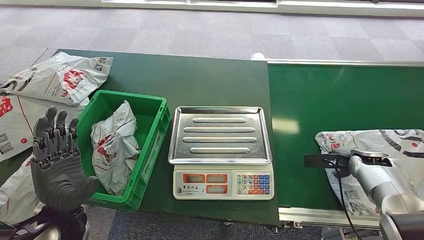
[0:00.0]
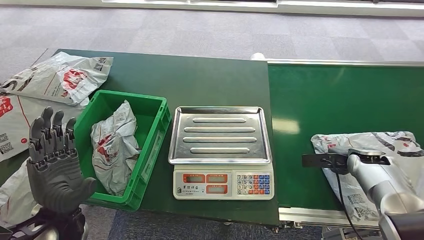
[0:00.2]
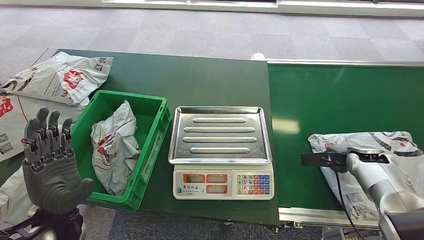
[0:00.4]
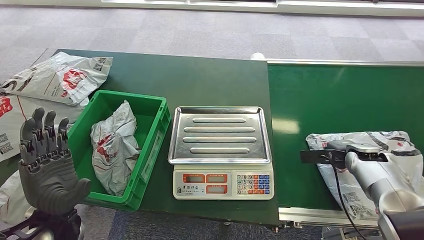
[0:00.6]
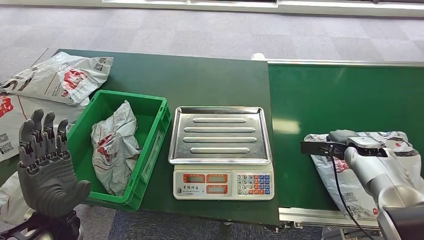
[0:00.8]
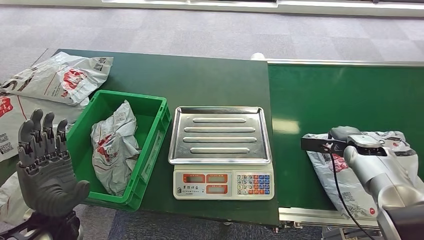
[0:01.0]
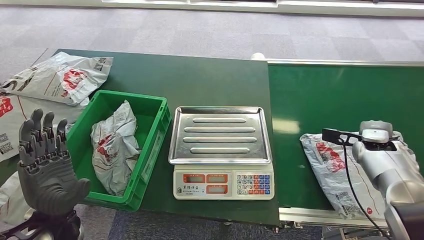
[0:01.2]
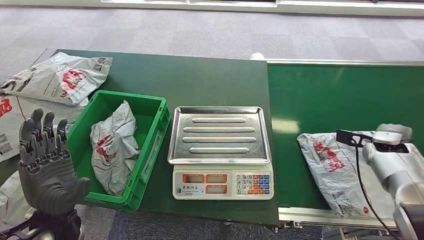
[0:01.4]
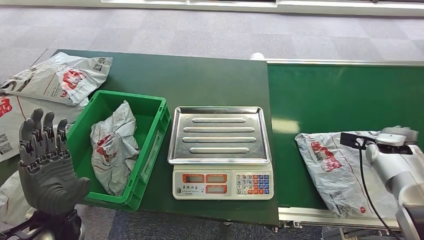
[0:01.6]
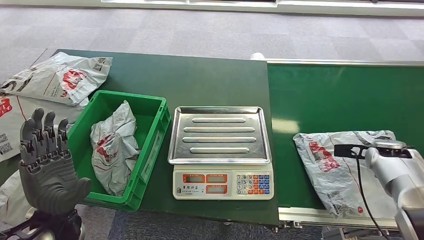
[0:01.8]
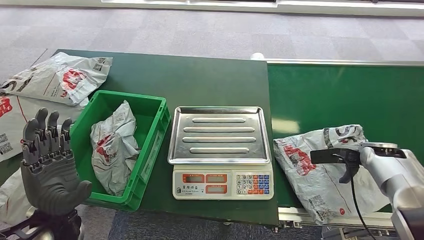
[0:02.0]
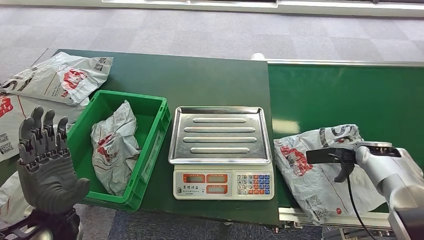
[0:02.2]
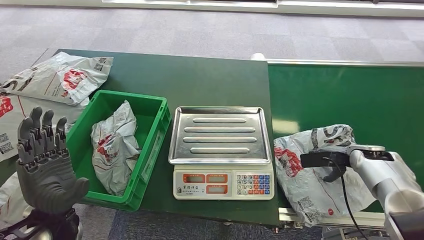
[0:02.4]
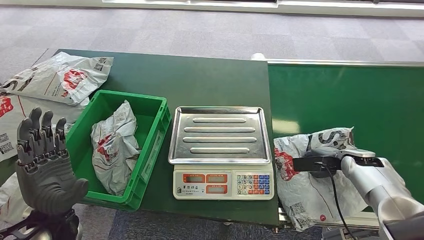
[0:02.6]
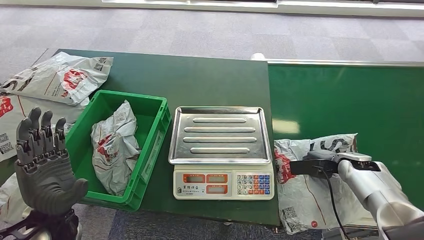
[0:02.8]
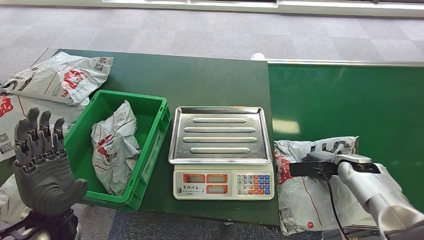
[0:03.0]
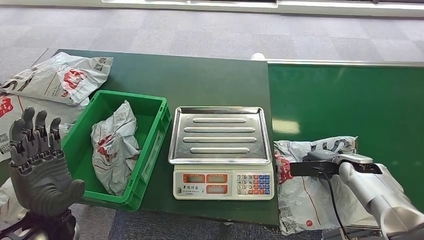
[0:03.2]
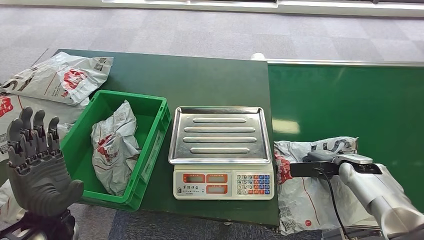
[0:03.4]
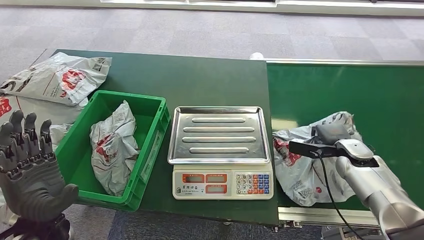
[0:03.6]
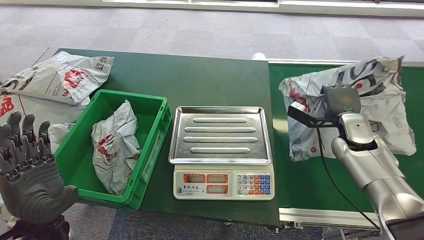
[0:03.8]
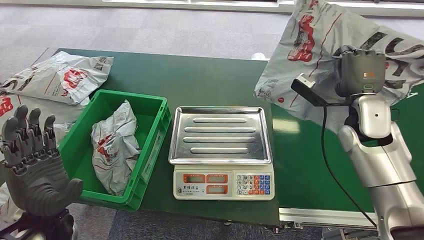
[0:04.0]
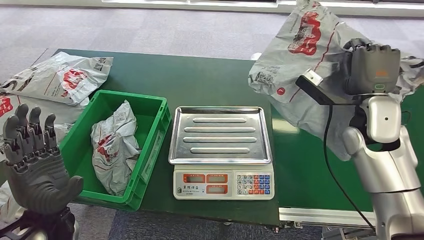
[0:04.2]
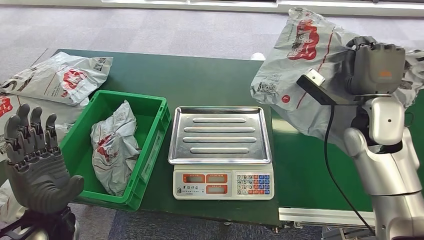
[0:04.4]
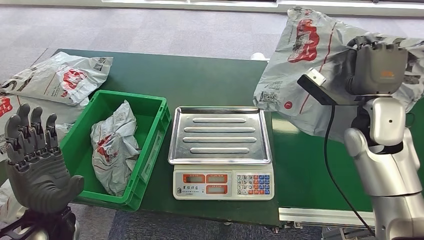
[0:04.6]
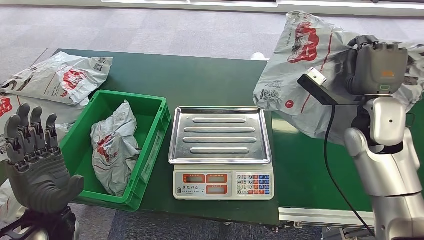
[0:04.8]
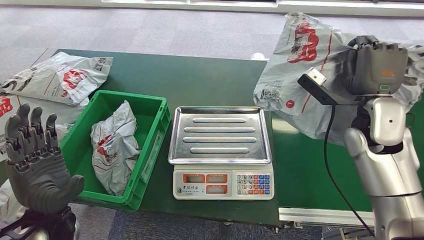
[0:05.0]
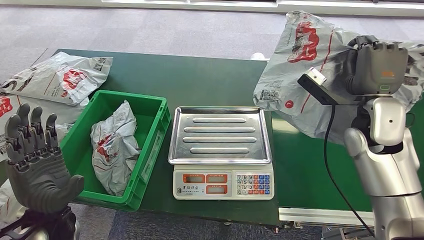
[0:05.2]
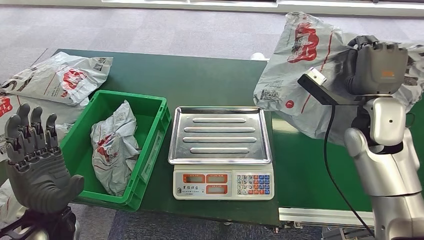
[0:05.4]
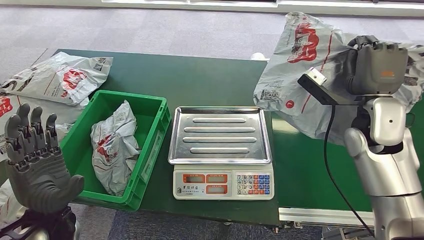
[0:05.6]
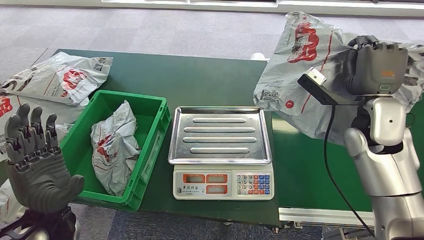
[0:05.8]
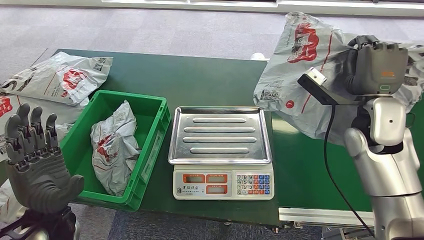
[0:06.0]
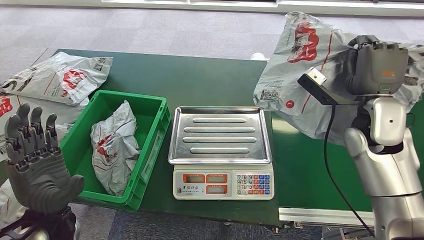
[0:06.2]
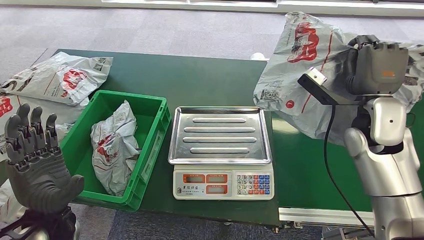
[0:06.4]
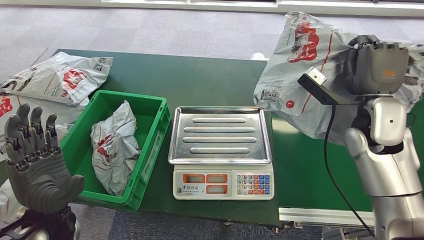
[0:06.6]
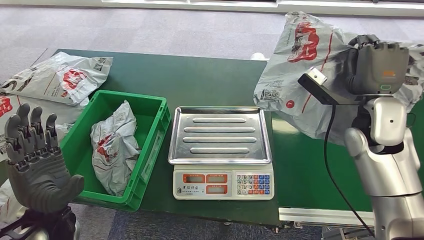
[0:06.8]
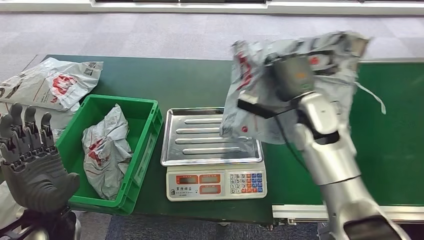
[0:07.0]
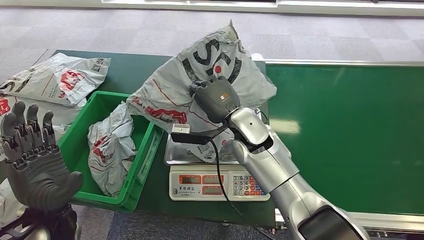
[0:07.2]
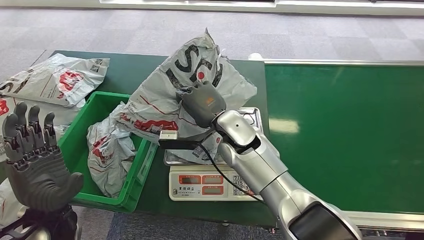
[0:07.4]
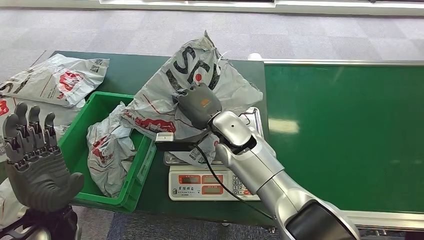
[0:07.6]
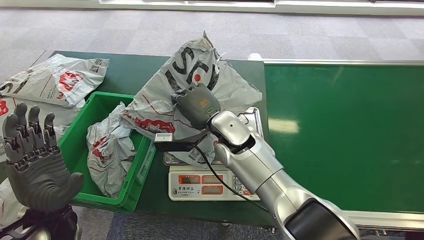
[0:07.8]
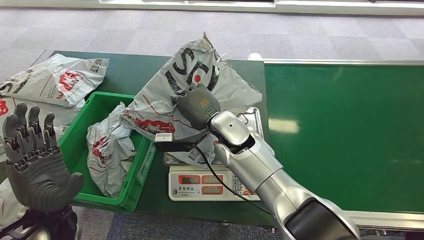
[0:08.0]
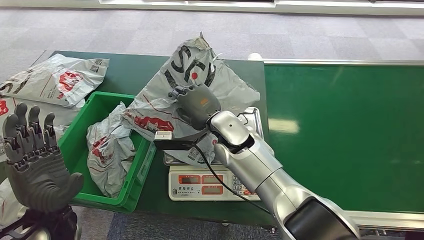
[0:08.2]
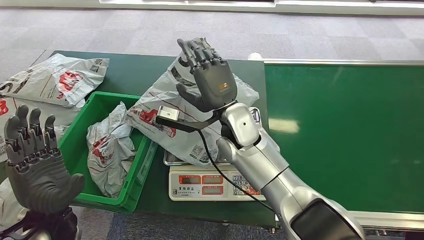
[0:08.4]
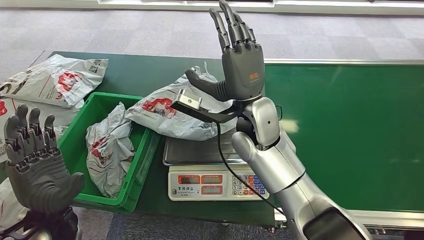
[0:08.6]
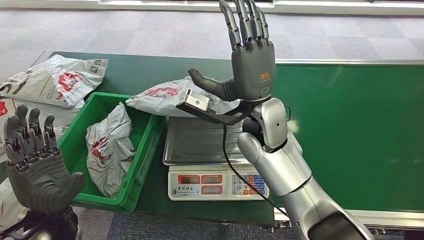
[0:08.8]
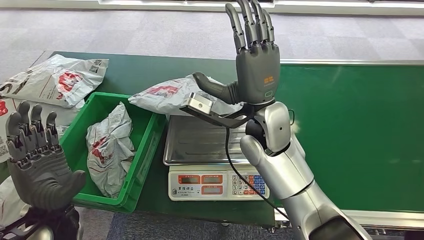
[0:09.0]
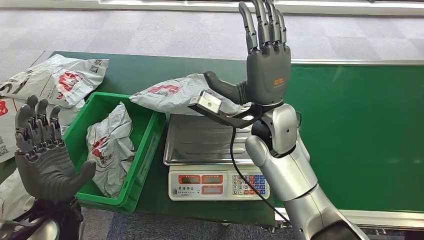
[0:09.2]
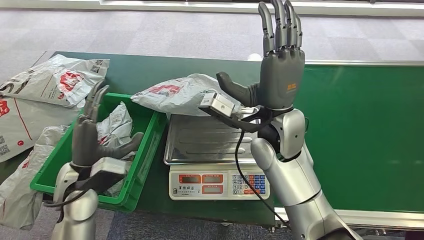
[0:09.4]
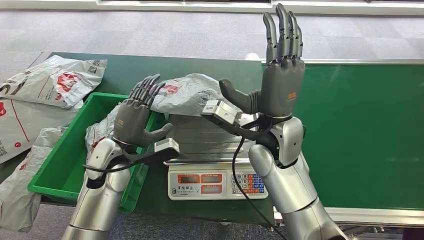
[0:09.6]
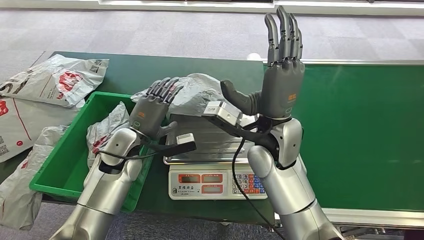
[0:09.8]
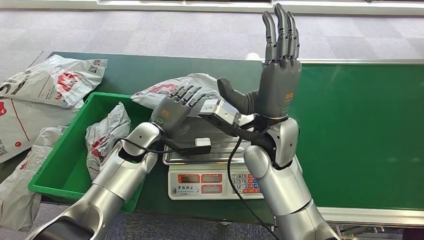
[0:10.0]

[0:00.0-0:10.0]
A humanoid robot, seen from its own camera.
Step, 0:00.0 to 0:04.2: Pick up the package from the conveyor belt.
Step, 0:04.4 to 0:09.6: Place the package onto the inbound machine.
0:00.0 to 0:01.4: The right hand shifts by approximately 5 cm.
0:01.4 to 0:02.8: The right hand shifts approximately 10 cm downward and to the left.
0:04.2 to 0:05.8: Both hands stay about where they are.

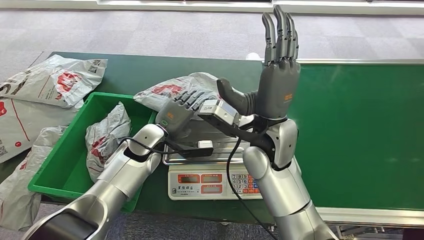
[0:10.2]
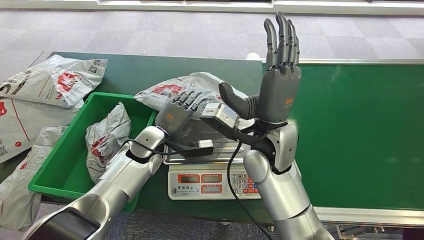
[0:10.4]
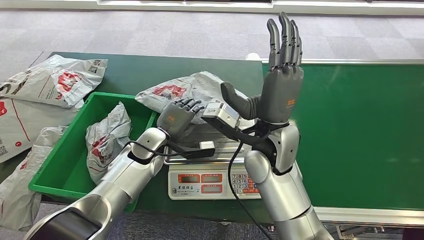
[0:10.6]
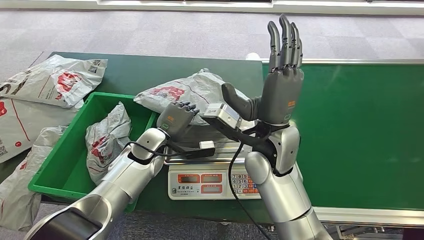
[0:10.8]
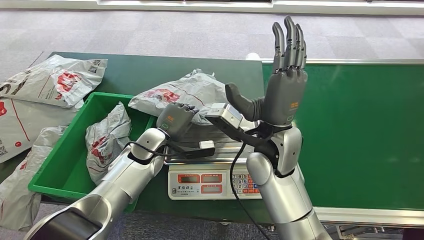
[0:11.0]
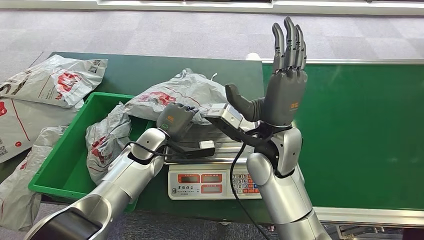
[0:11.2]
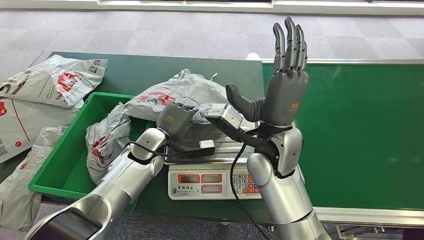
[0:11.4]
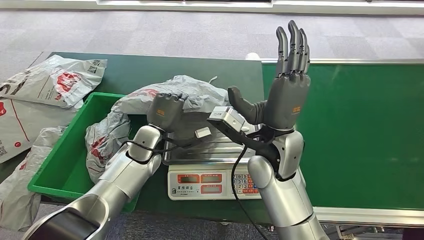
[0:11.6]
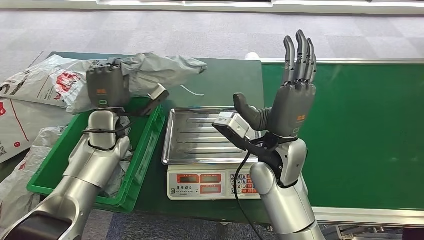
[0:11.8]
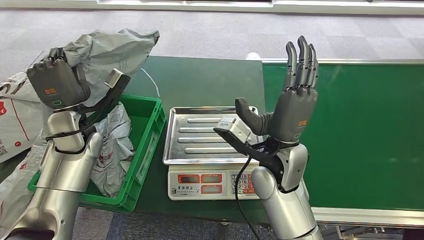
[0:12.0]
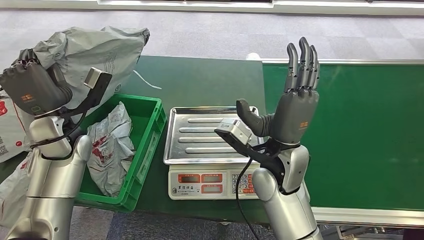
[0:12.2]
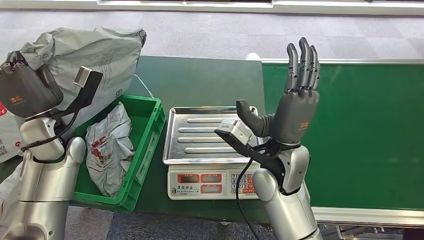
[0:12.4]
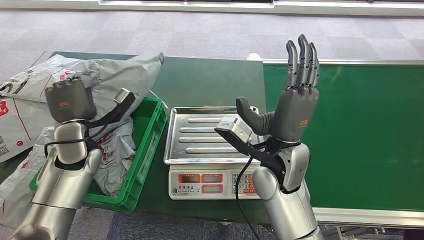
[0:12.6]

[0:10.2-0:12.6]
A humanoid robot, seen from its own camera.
Step, 0:10.2 to 0:12.2: Pick up the package from the inbound machine.
Step, 0:12.4 to 0:12.6: Place the package into the parcel locker.
0:10.2 to 0:11.4: The hands stay close to where they were, moving slightly.

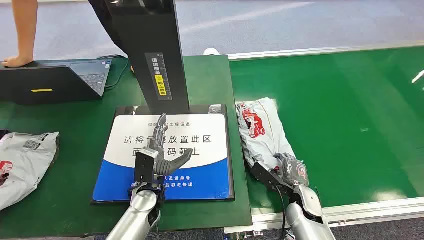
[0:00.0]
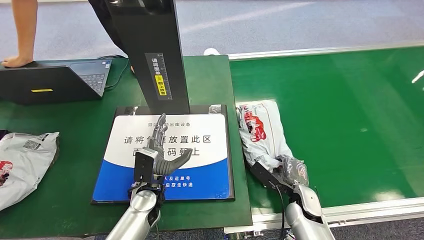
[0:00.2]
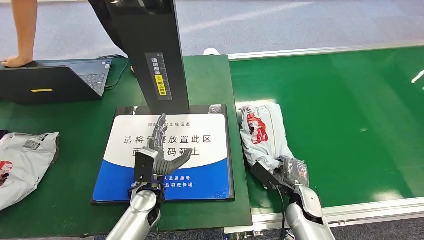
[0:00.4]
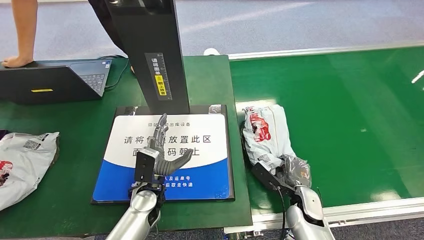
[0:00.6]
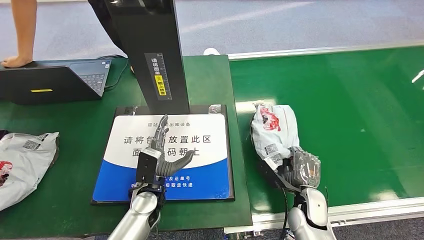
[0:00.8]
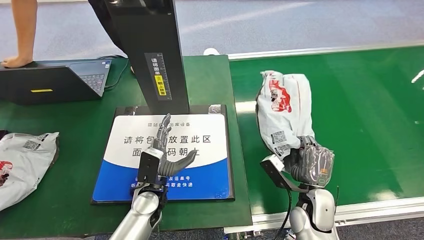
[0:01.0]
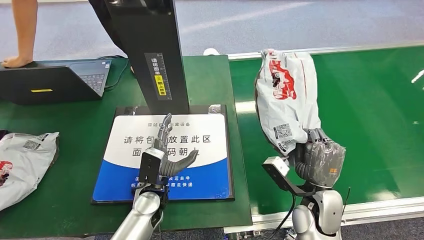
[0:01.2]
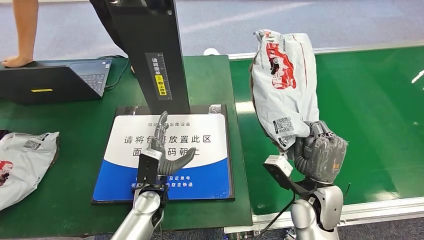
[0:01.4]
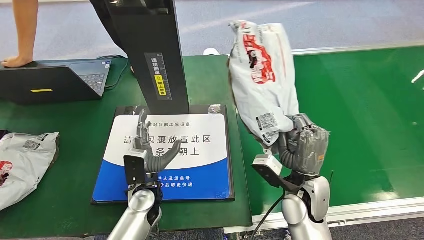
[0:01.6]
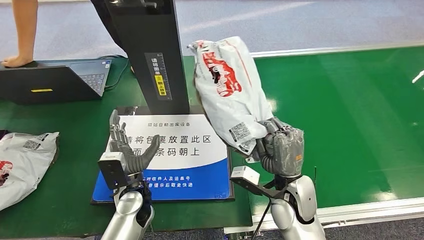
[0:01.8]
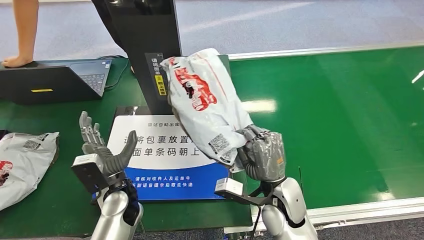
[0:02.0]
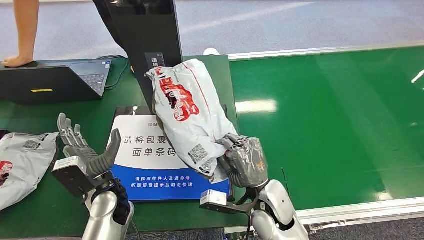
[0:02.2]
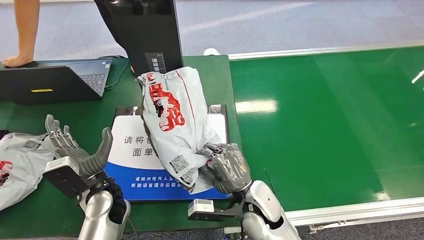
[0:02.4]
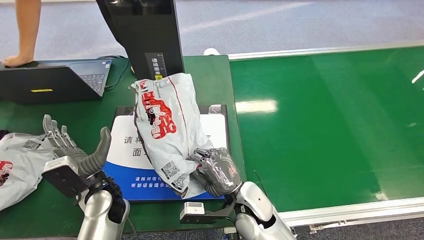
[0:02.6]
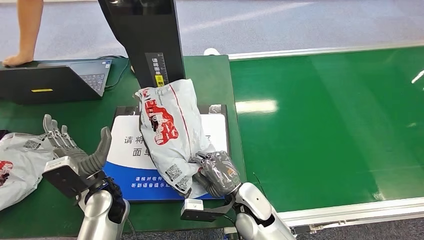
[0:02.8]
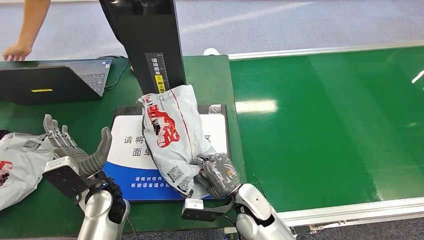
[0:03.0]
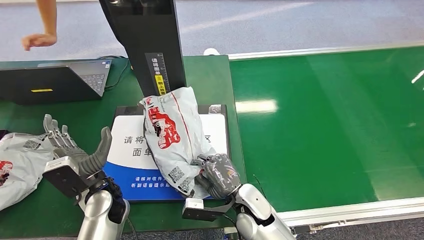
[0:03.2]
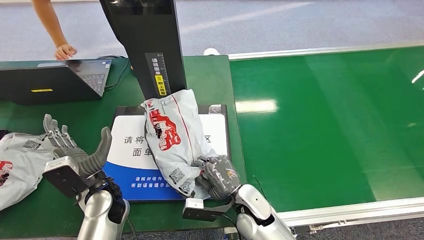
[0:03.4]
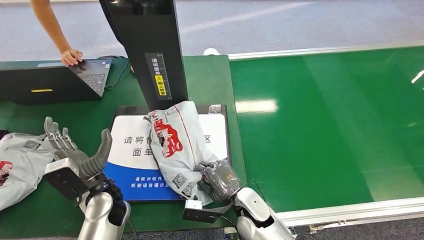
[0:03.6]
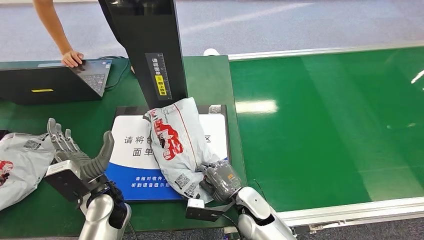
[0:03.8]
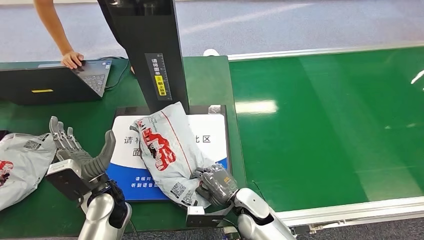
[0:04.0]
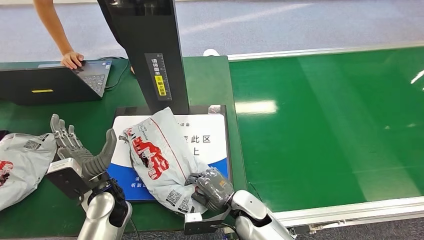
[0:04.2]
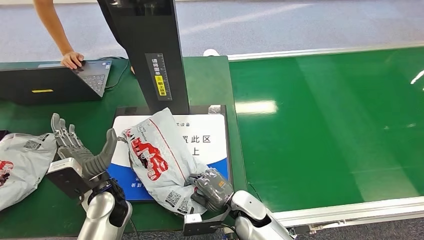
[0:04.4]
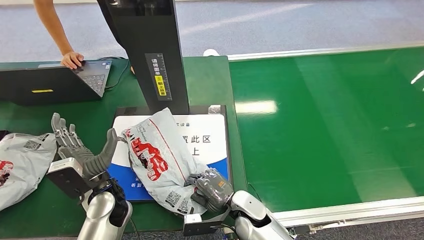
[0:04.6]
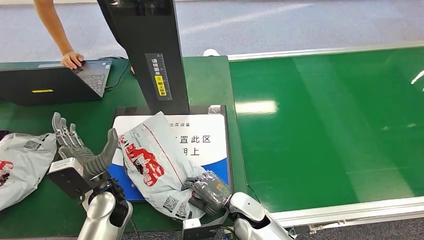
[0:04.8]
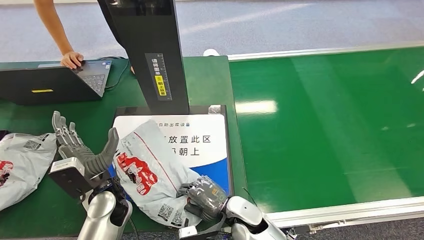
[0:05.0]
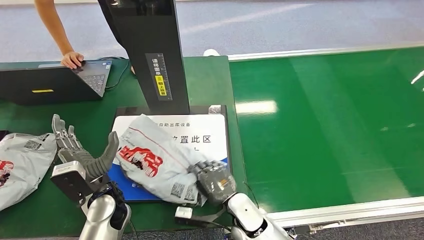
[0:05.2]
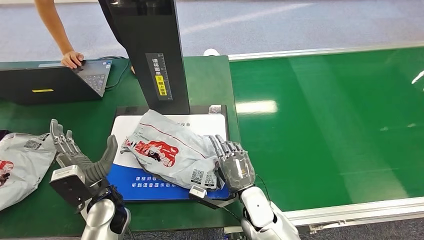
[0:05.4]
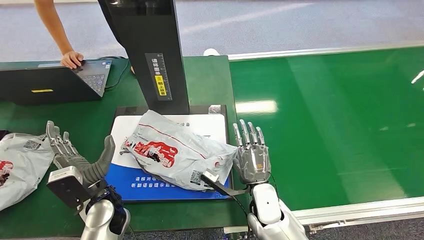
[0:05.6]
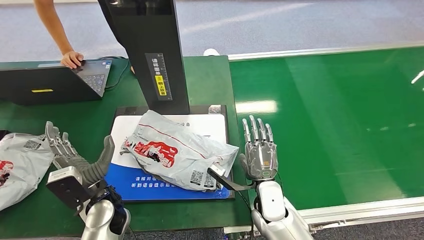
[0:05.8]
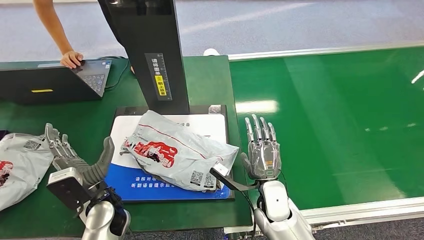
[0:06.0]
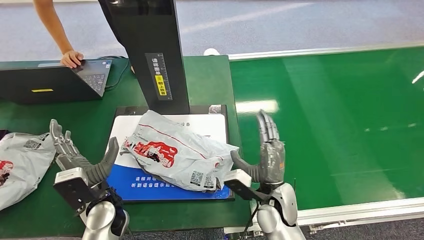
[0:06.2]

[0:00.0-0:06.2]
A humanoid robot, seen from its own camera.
Step, 0:00.0 to 0:01.8: Pick up the package from the conveyor belt.
0:03.2 to 0:04.6: The hands stay close to where they were, moving slightly.
0:04.6 to 0:06.2: The right hand heads to the right and upward, covering roughly 10 cm.
